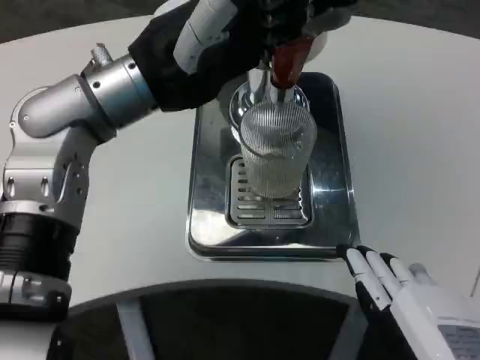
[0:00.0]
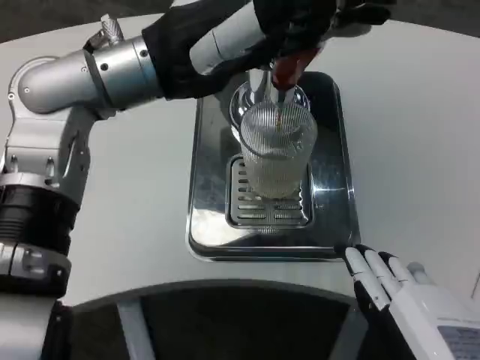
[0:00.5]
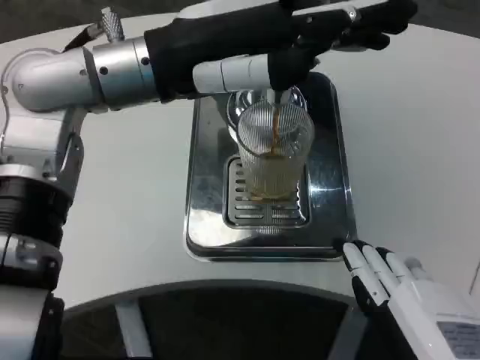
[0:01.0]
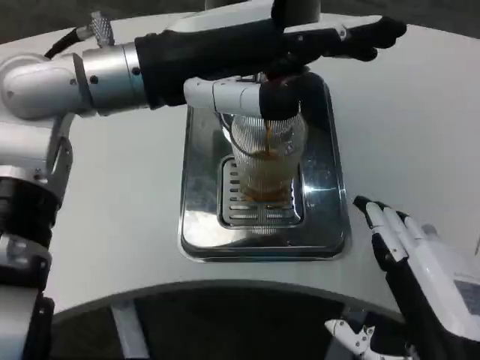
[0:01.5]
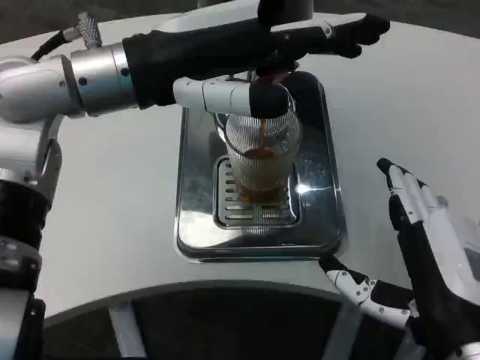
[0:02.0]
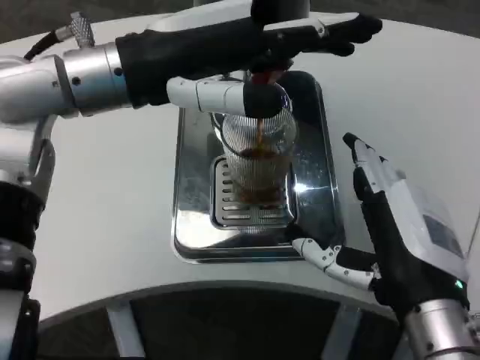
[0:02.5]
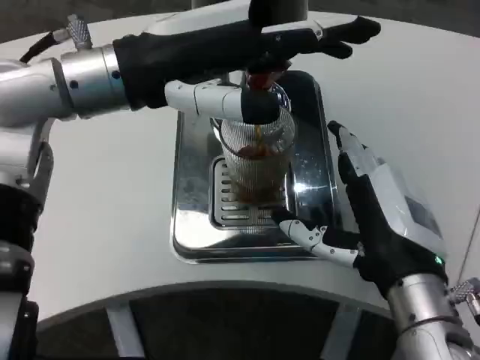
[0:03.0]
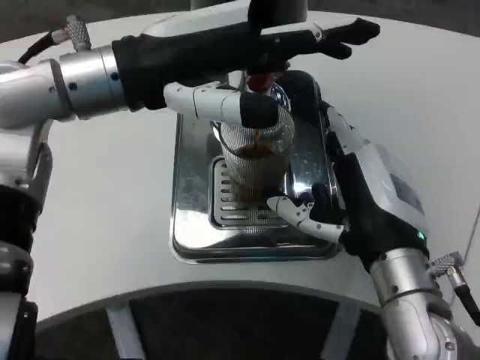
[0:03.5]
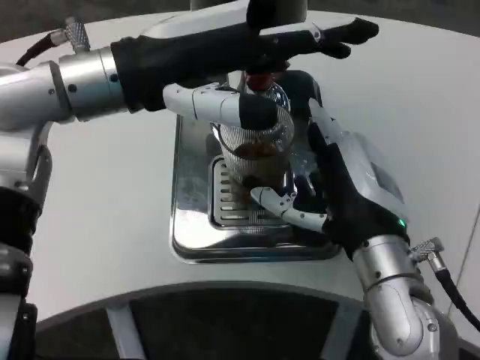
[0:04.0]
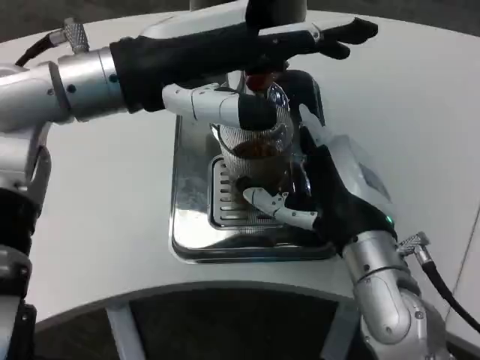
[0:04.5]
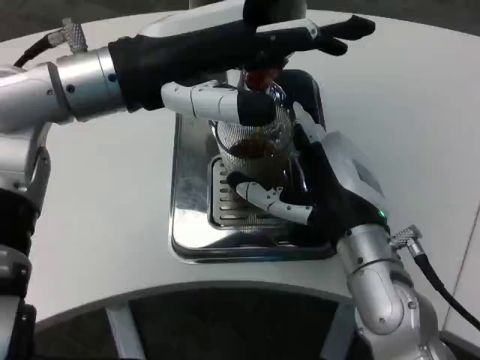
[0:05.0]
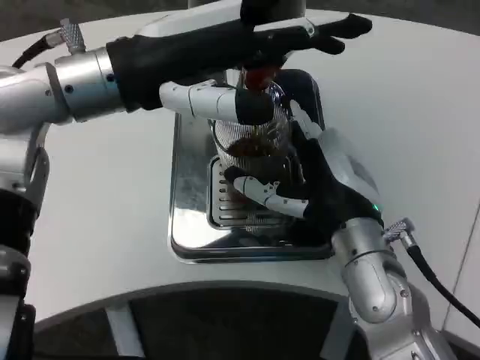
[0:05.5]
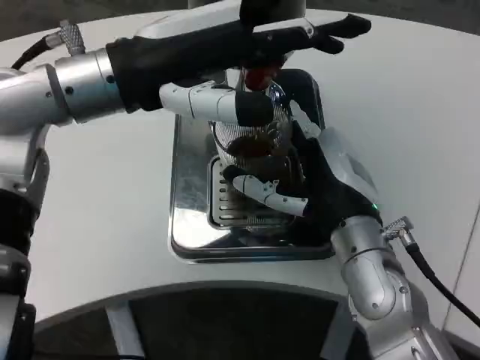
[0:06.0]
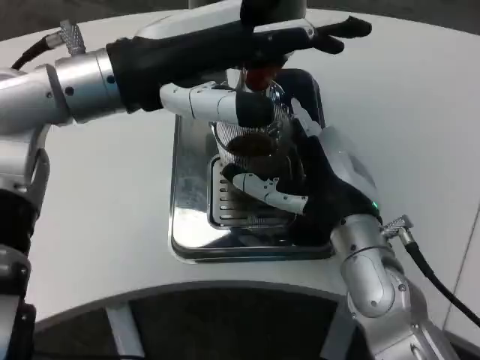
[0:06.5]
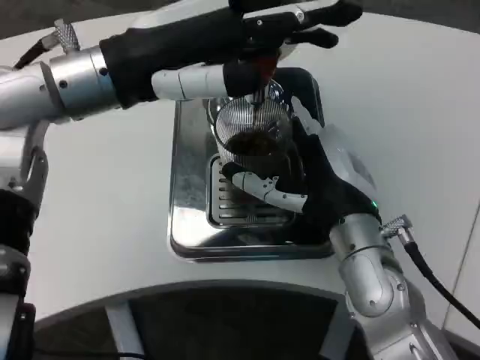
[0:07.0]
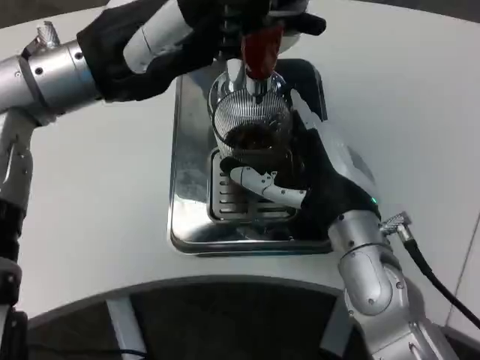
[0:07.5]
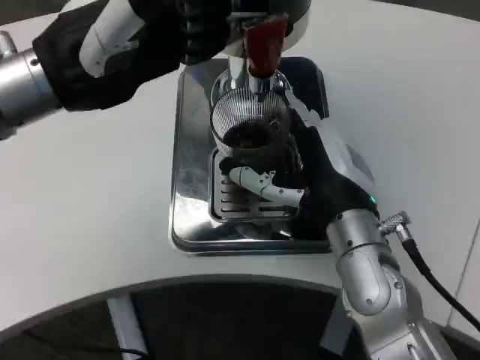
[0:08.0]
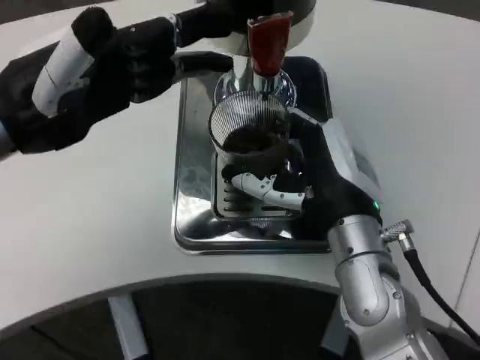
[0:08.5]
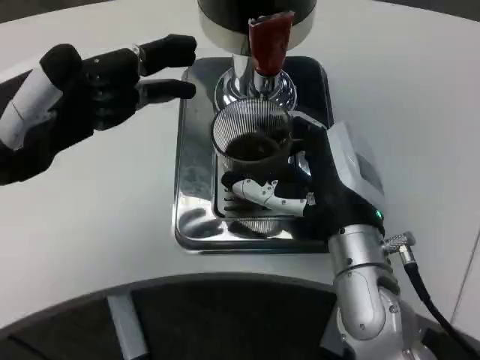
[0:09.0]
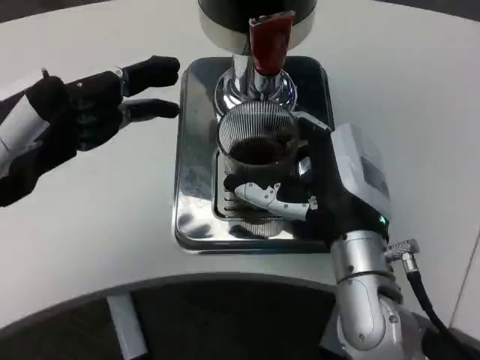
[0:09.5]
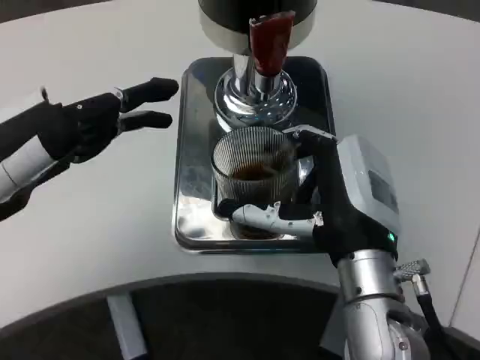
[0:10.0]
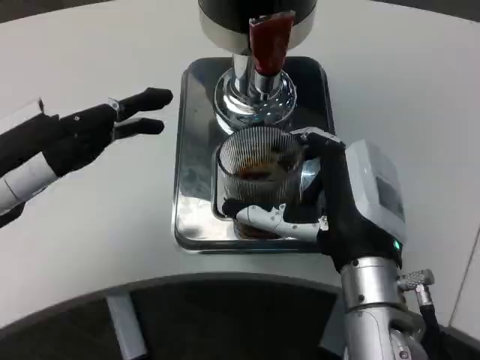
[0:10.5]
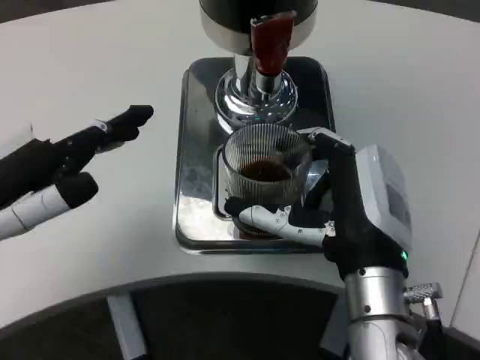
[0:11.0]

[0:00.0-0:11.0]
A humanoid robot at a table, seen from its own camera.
Task of the whole recording: Grasp the cup under the faucet to collect the drink, then remove the cup.
0:00.0 to 0:02.0: The right hand moves forward, roughly 5 cm.
0:02.0 to 0:03.5: The right hand moves forward, some 10 cm.
0:07.5 to 0:09.0: The left hand travels to the left and backward by some 10 cm.
0:09.0 to 0:11.0: The left hand changes place by about 5 cm.

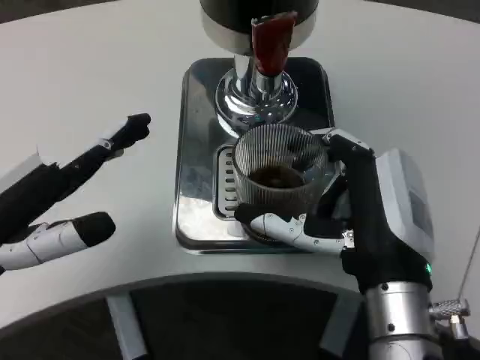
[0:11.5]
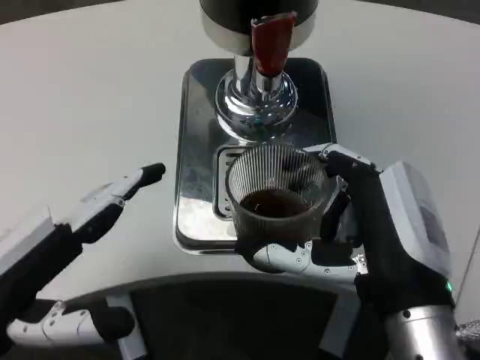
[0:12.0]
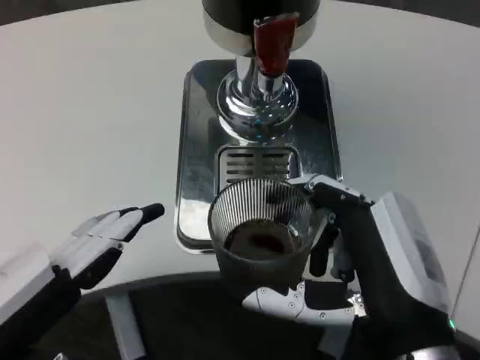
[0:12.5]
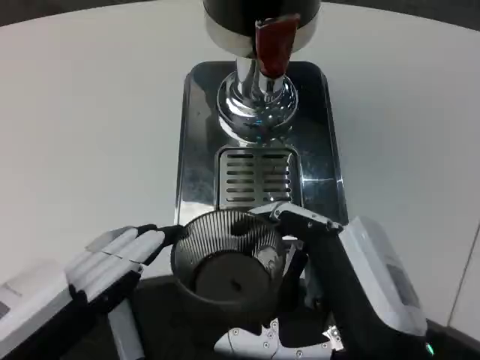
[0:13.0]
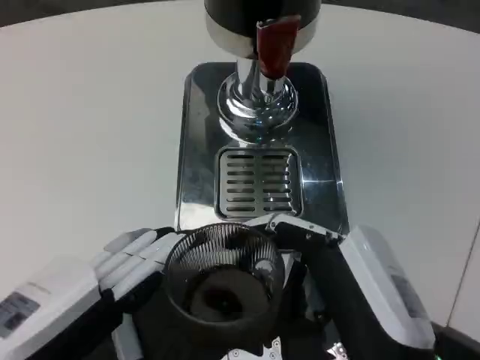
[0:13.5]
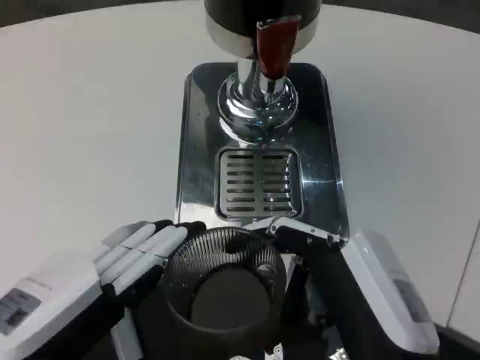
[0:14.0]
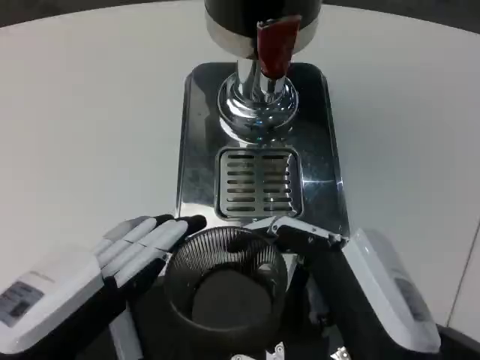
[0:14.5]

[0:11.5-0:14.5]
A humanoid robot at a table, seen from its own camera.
Task of the whole recording: Grasp the cup under the faucet to collect the drink, then remove the cup.
0:11.5 to 0:13.0: The two hands go some 5 cm backward.
0:13.0 to 0:14.5: The hands stay close to where they were, moving slightly.

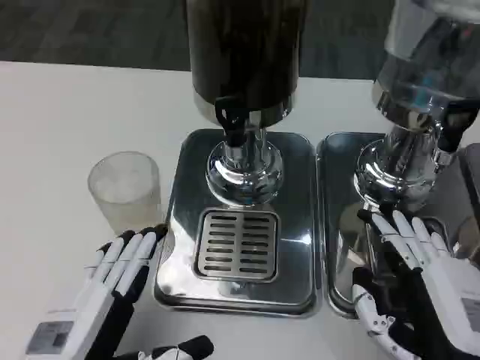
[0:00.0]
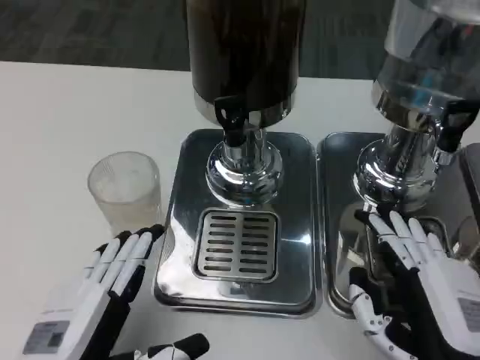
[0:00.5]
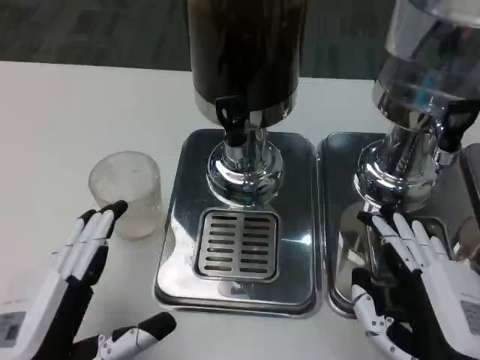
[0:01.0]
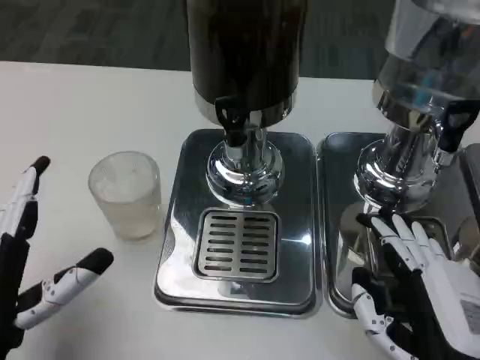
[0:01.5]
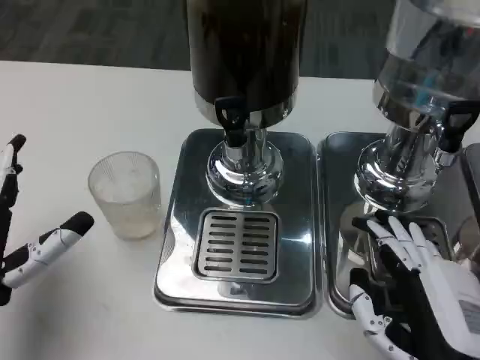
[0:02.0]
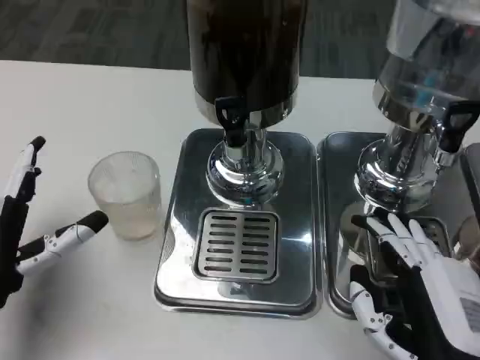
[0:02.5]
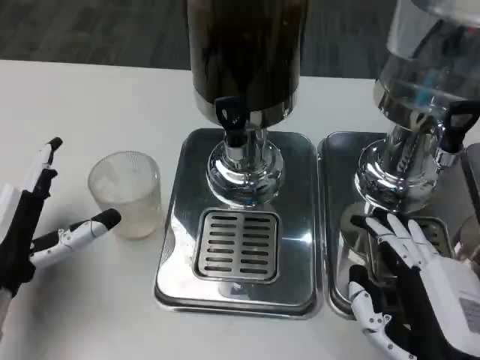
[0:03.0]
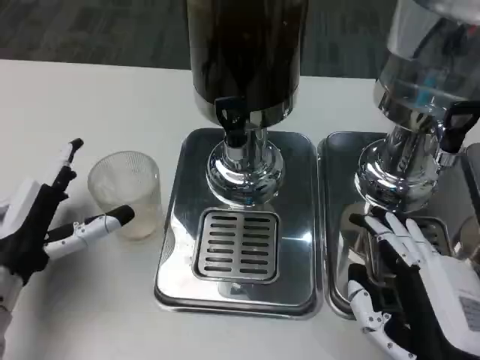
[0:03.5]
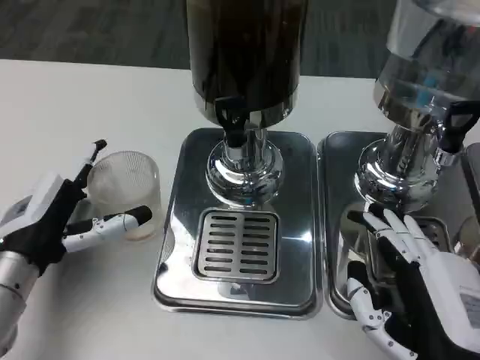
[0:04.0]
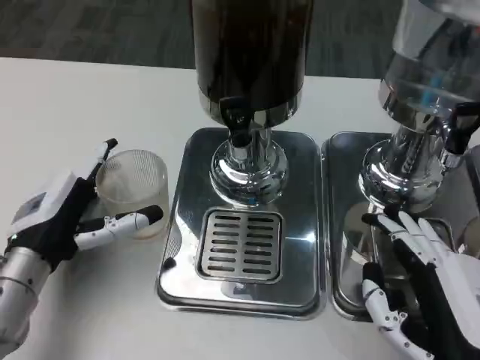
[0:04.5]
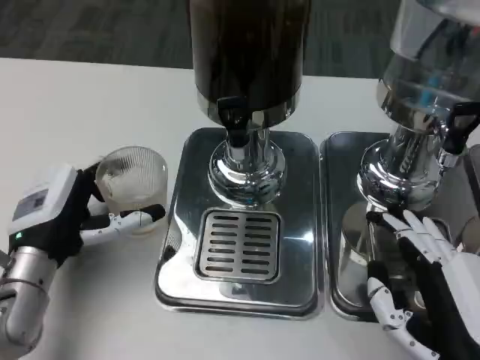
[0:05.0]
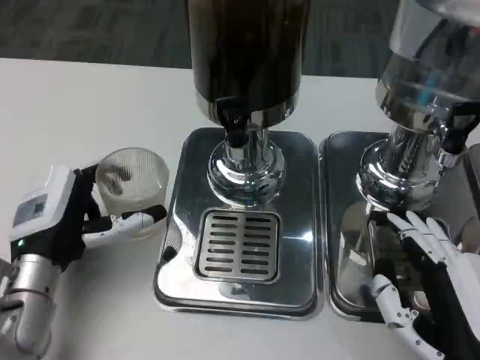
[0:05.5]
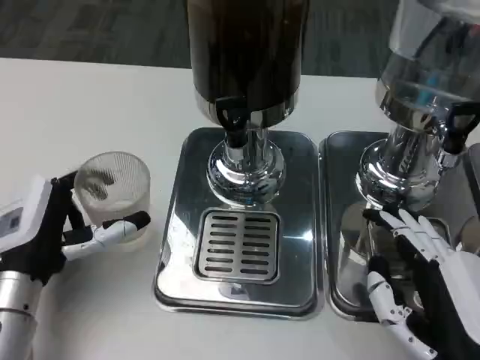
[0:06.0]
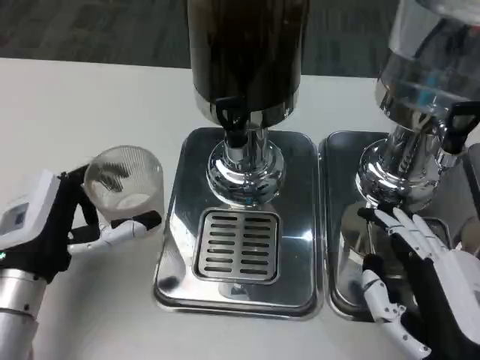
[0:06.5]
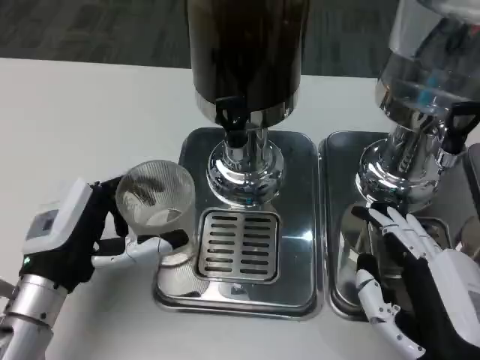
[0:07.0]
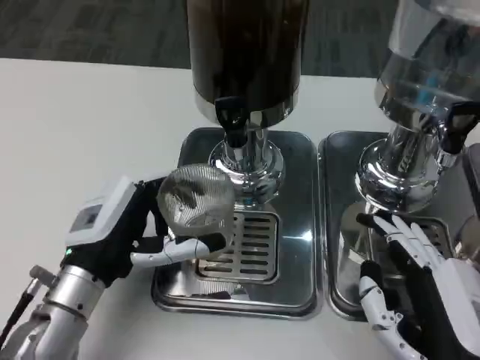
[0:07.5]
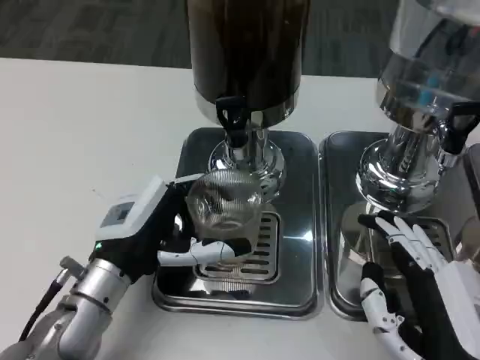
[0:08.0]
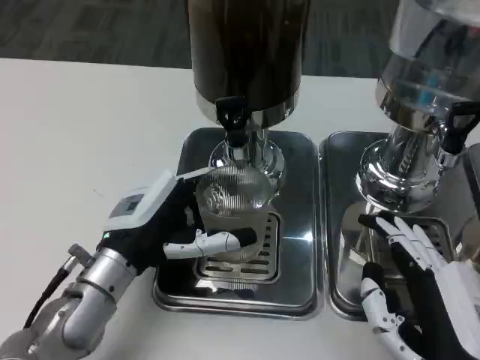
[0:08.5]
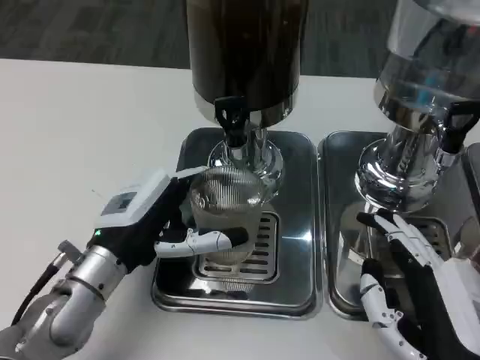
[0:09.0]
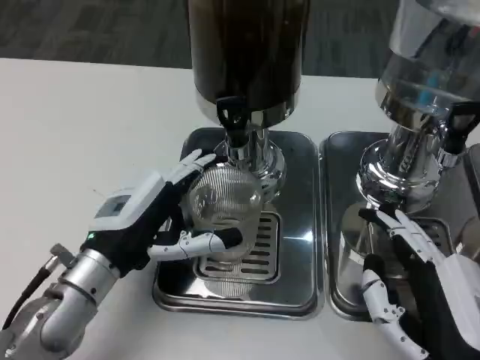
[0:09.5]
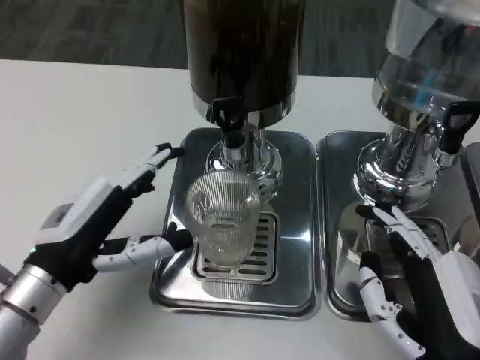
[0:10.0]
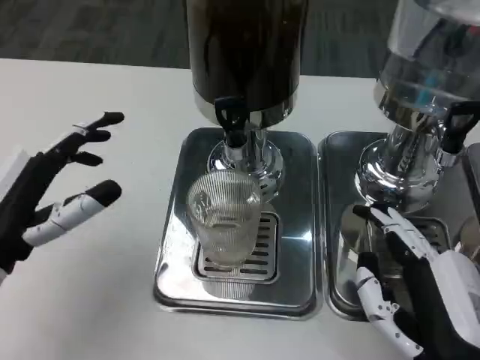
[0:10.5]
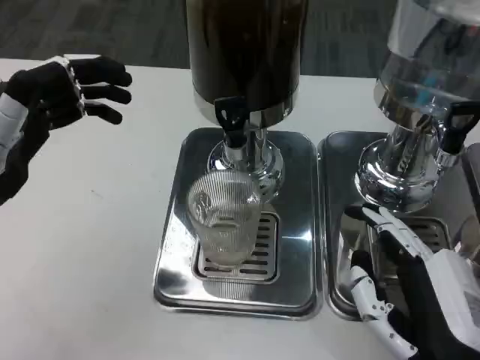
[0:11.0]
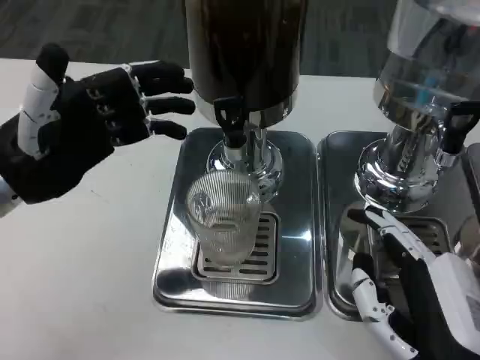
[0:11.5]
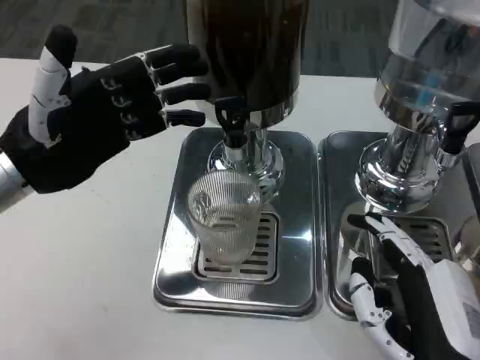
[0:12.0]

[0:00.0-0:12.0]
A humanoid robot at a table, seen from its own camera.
Task of the whole recording: Grasp the cup under the faucet to collect the drink, then remove the cup.
0:00.0 to 0:02.0: The left hand goes about 10 cm forward and to the left.
0:02.0 to 0:04.0: The left hand is displaced forward by some 5 cm.
0:04.0 to 0:06.0: The hands stay close to where they were, moving slightly.
0:06.0 to 0:08.0: The left hand goes roughly 5 cm to the right.
0:08.0 to 0:10.0: The left hand travels to the left by approximately 5 cm.
0:10.0 to 0:12.0: The left hand travels upward and forward by about 10 cm.
